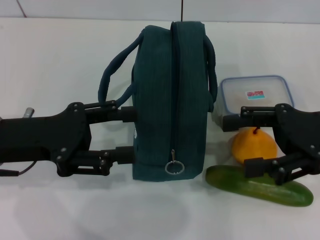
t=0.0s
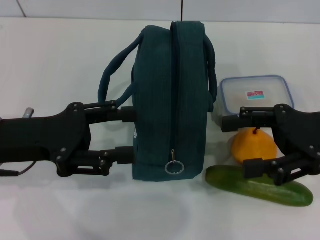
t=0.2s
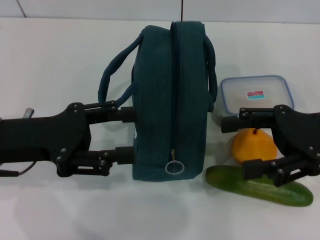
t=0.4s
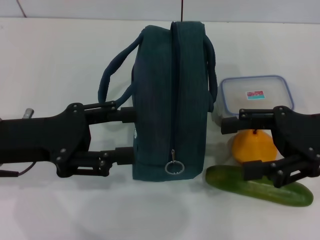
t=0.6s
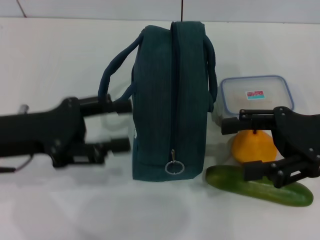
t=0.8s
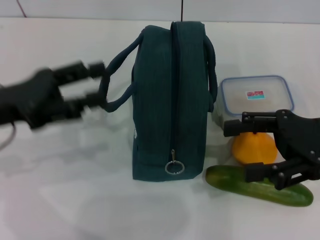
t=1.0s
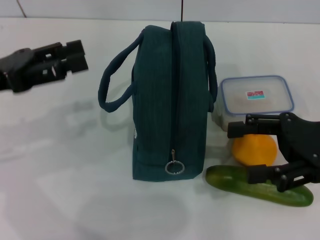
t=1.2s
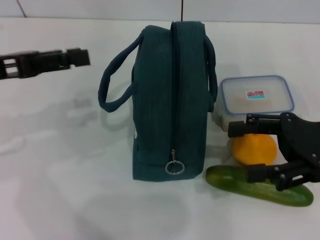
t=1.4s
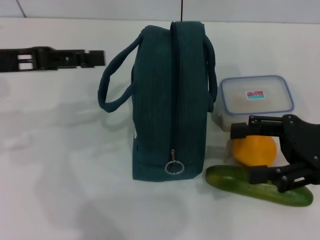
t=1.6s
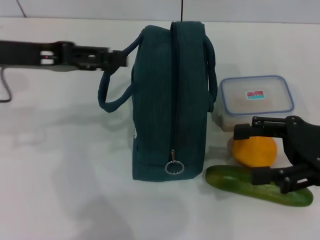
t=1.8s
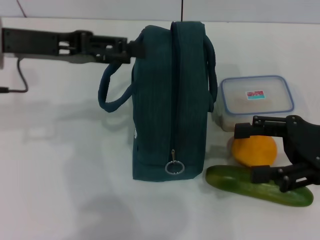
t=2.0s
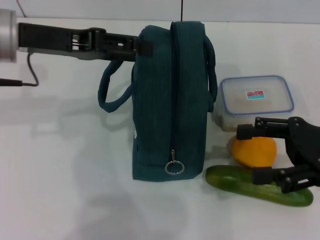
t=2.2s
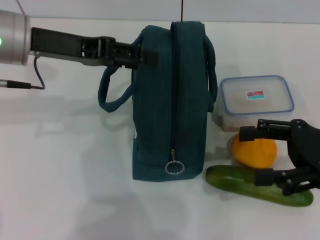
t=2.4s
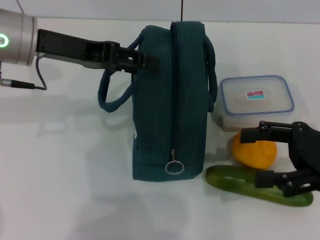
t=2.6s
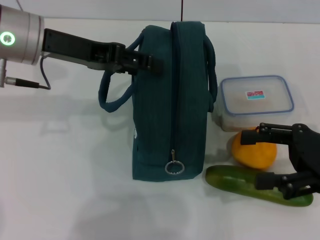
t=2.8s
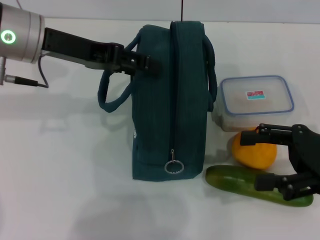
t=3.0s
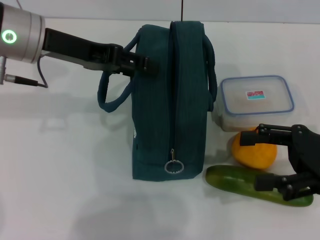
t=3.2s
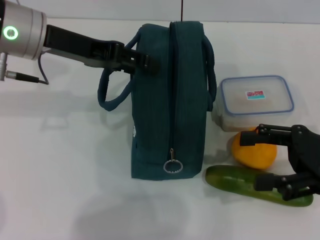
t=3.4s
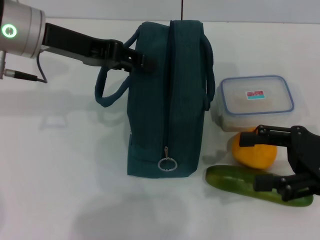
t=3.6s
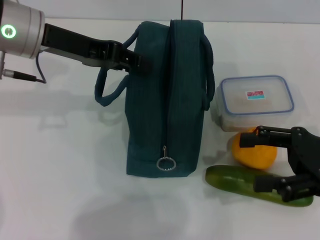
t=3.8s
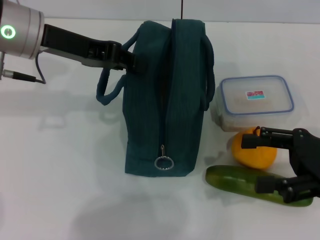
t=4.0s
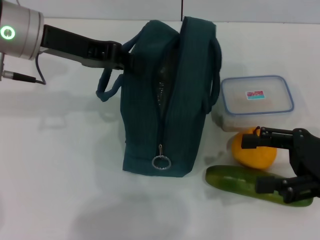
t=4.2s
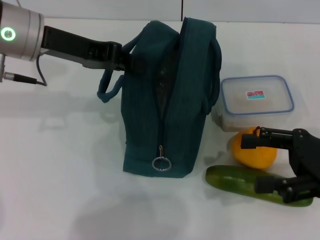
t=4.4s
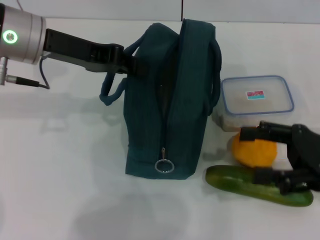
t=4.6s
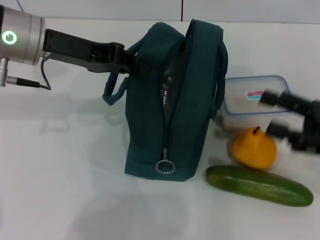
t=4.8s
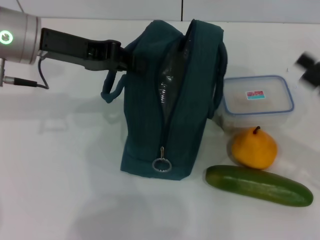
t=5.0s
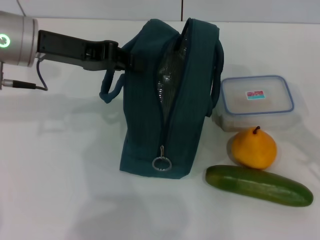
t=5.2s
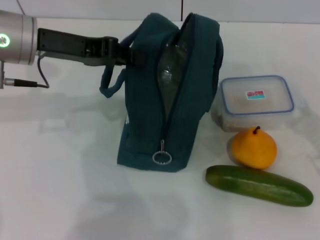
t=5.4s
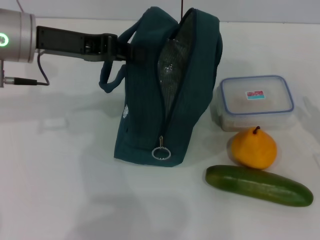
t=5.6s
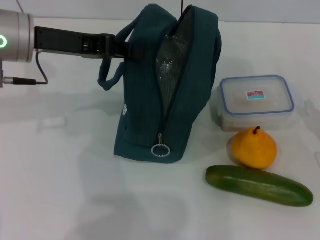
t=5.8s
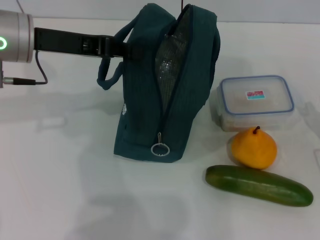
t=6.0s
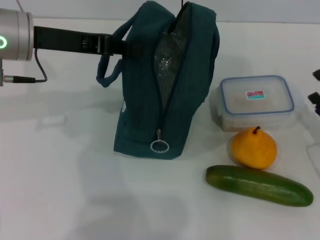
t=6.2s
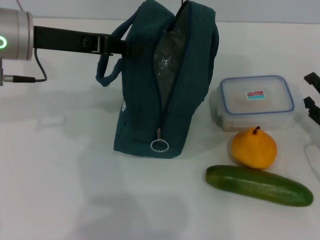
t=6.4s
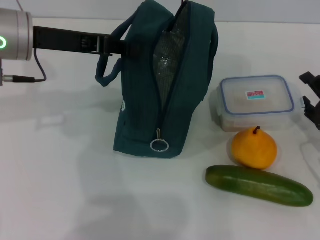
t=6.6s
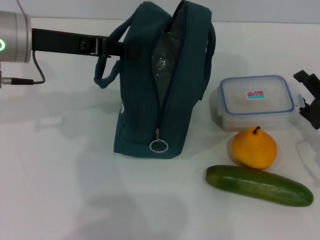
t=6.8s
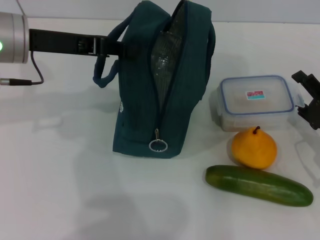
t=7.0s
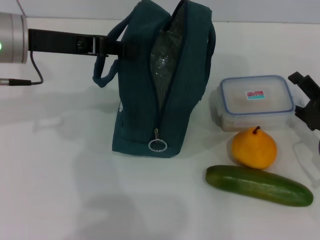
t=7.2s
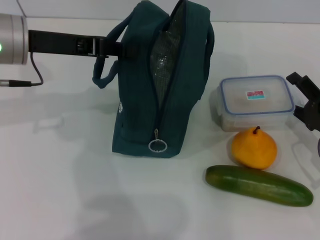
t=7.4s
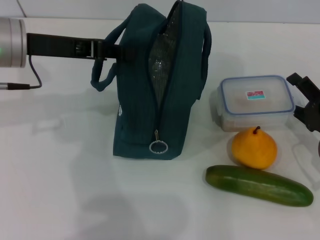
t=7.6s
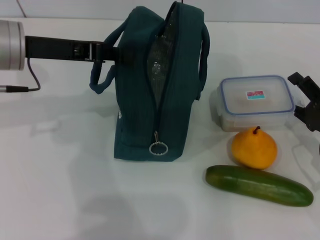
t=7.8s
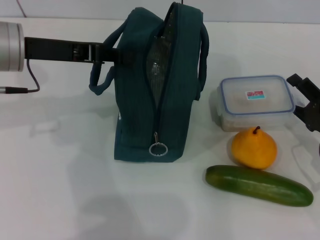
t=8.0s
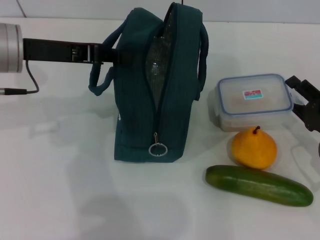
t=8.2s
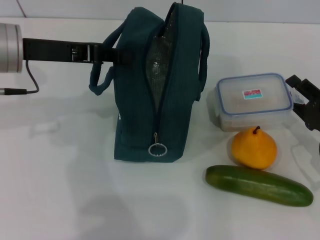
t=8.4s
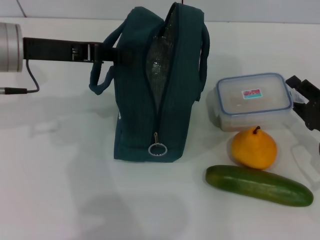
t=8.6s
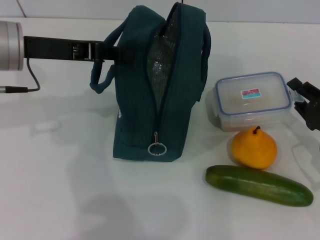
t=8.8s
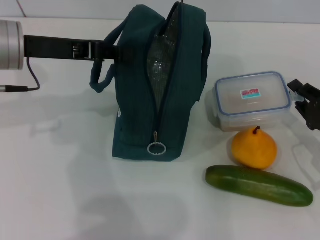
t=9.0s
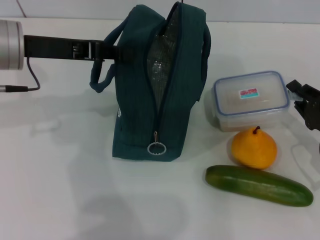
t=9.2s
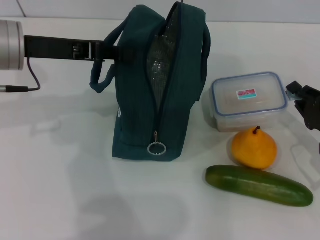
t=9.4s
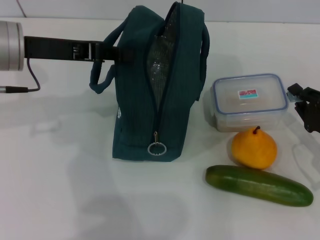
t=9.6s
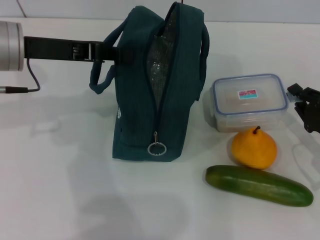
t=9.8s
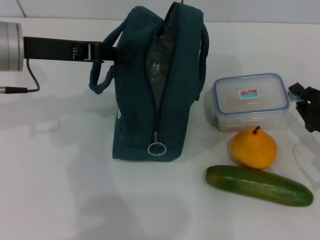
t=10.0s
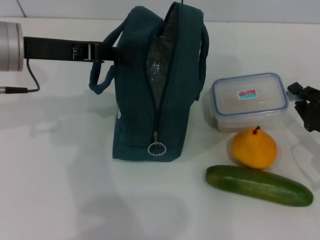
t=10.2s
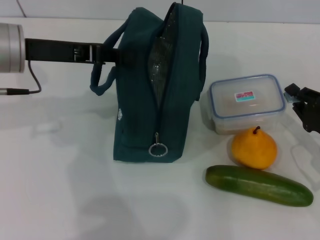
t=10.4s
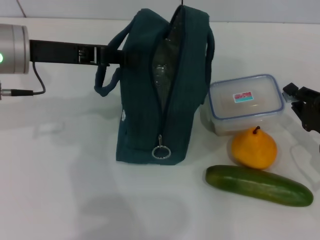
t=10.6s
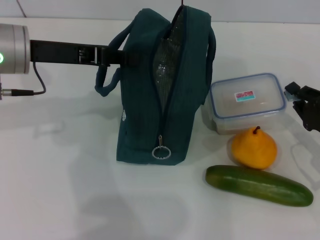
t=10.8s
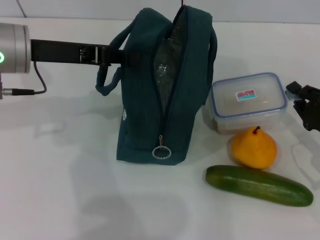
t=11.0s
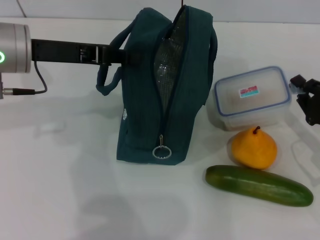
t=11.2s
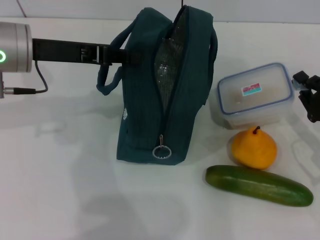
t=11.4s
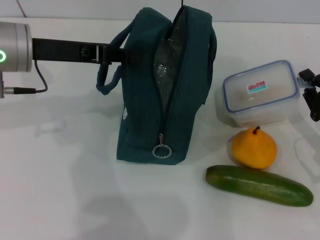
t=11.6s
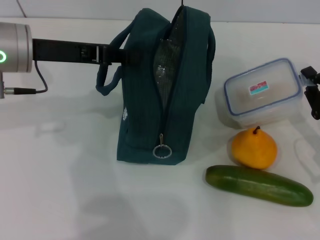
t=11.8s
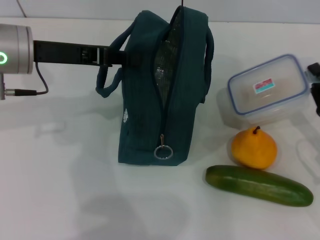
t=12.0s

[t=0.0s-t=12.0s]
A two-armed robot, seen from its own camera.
Step, t=0.0s to t=4.0s: Hold the lunch bag with your left hand.
Step, t=4.2s to t=9.6s: Pick up the lunch box with your right hand.
t=0.0s to t=1.6s: The left gripper travels upward and forward by about 10 cm.
t=1.6s to t=3.0s: The left gripper shifts approximately 10 cm to the right.
t=3.0s to t=4.4s: The left gripper closes its fingers.
t=4.4s to t=6.0s: The right gripper travels downward by roughly 10 cm.
t=6.0s to t=7.6s: The grippers move only a little.
t=7.6s to t=9.0s: The right gripper closes up.
t=9.0s to t=12.0s: The grippers make only small movements.

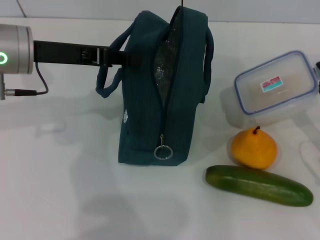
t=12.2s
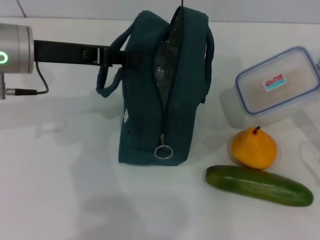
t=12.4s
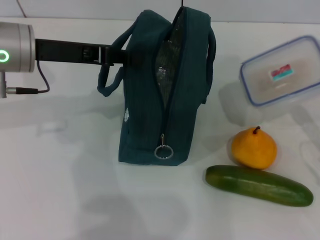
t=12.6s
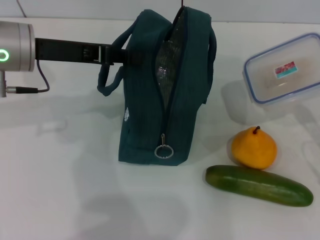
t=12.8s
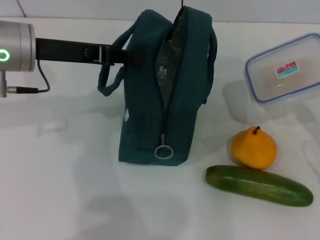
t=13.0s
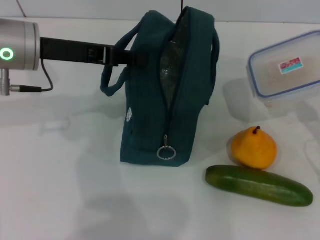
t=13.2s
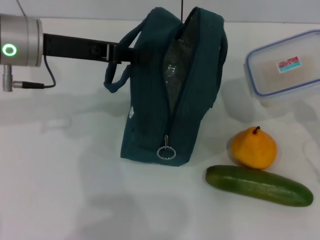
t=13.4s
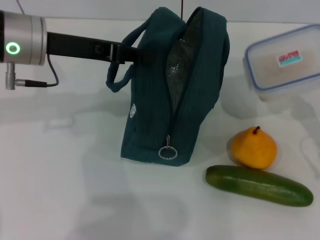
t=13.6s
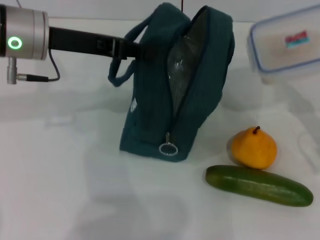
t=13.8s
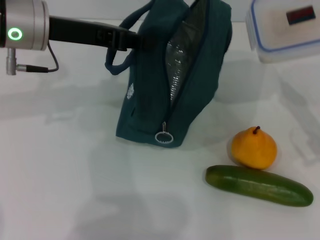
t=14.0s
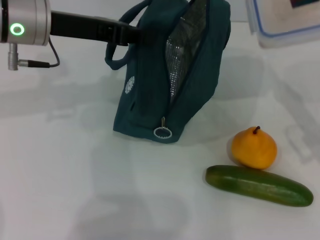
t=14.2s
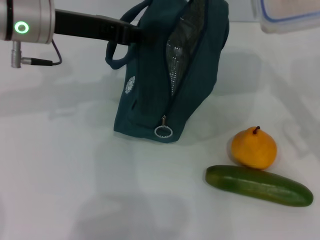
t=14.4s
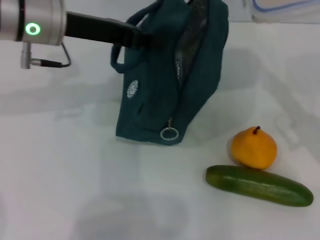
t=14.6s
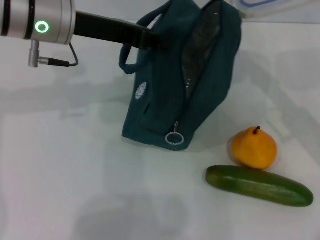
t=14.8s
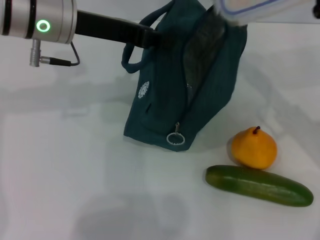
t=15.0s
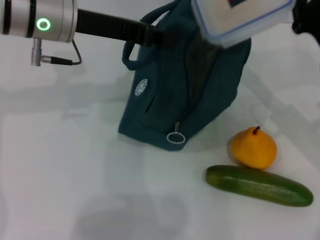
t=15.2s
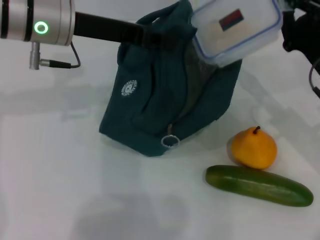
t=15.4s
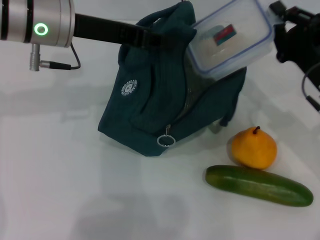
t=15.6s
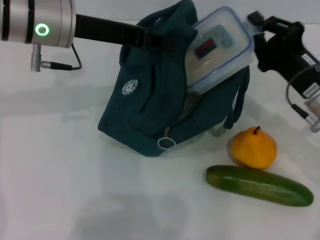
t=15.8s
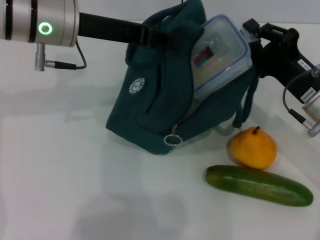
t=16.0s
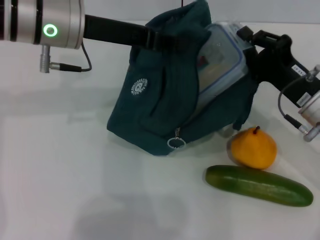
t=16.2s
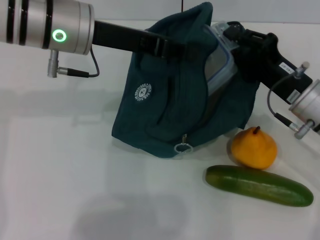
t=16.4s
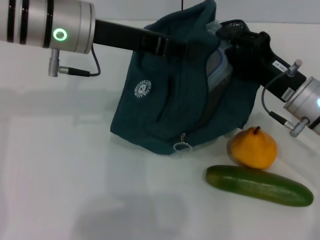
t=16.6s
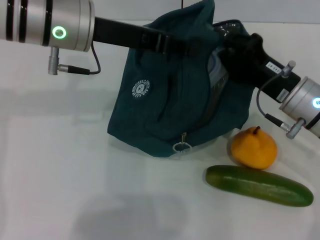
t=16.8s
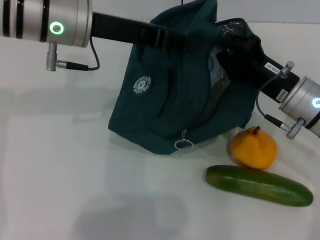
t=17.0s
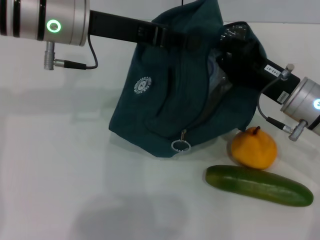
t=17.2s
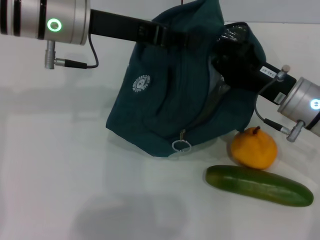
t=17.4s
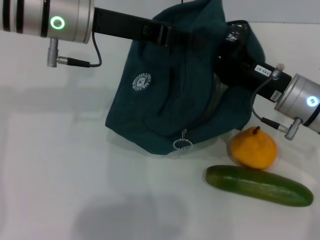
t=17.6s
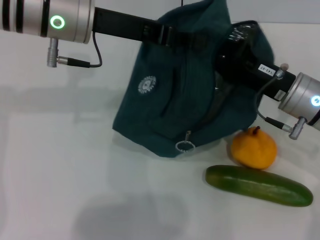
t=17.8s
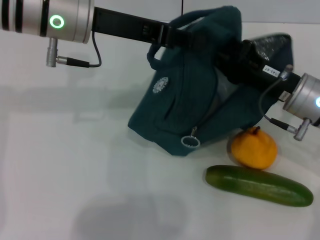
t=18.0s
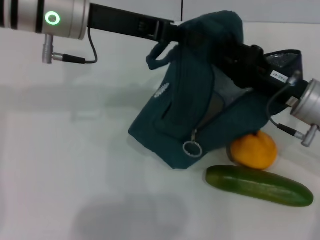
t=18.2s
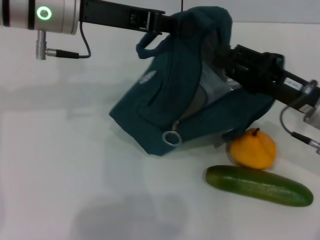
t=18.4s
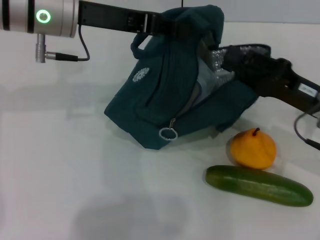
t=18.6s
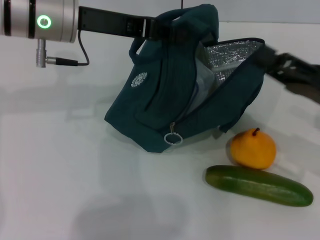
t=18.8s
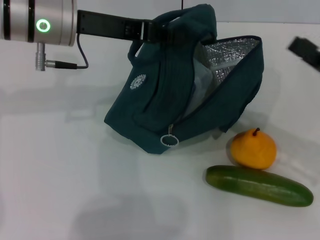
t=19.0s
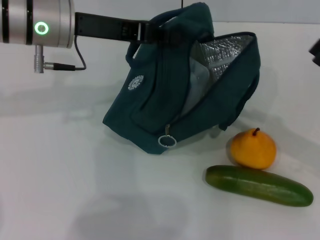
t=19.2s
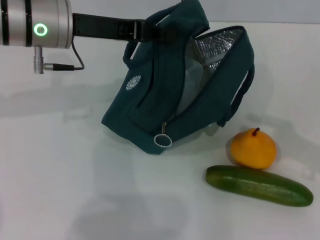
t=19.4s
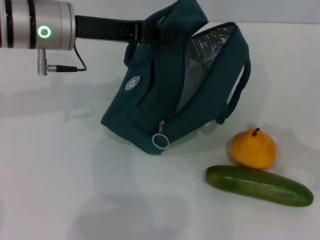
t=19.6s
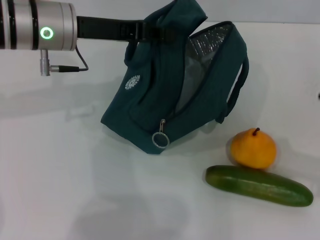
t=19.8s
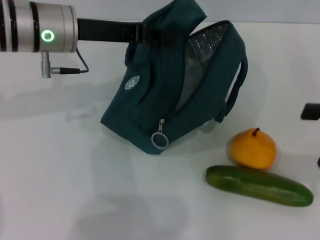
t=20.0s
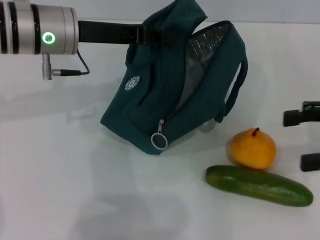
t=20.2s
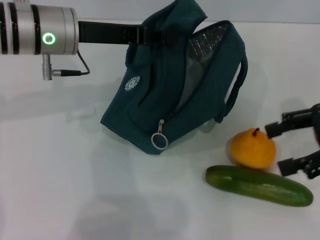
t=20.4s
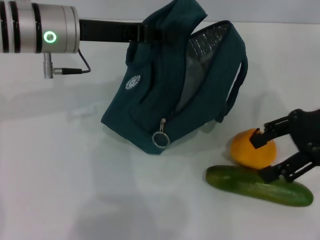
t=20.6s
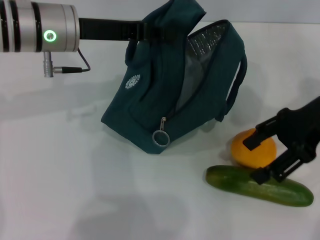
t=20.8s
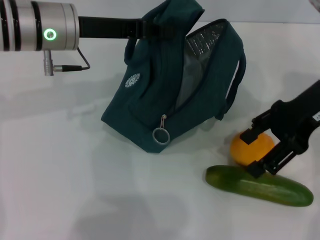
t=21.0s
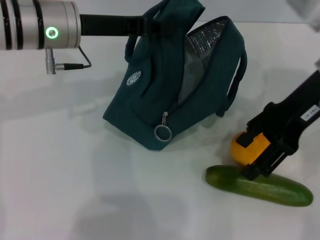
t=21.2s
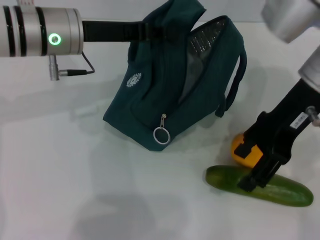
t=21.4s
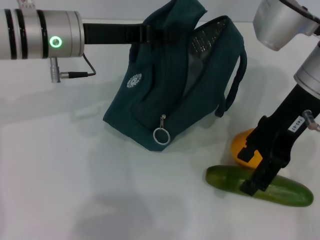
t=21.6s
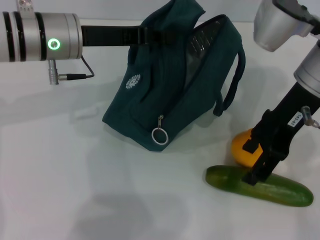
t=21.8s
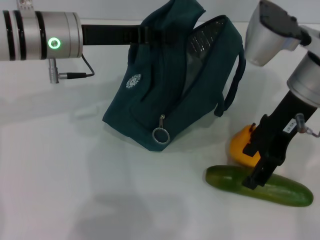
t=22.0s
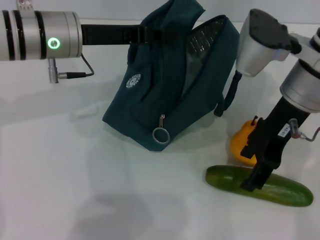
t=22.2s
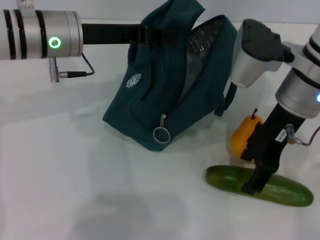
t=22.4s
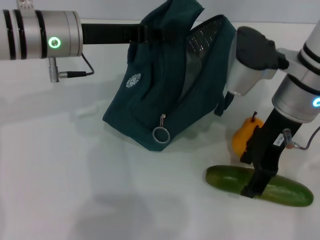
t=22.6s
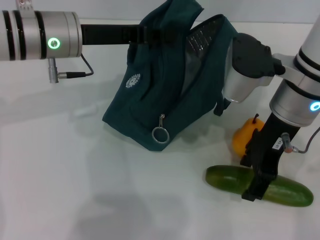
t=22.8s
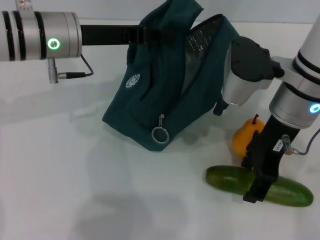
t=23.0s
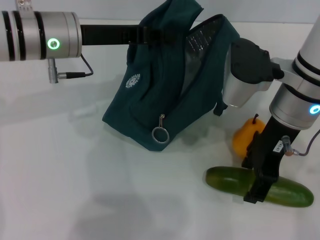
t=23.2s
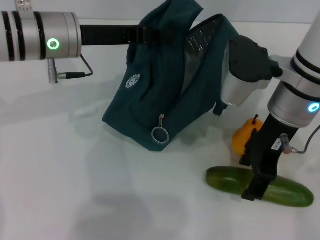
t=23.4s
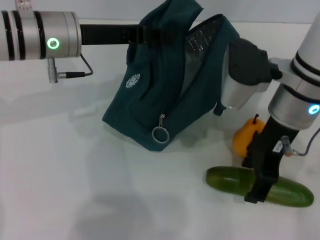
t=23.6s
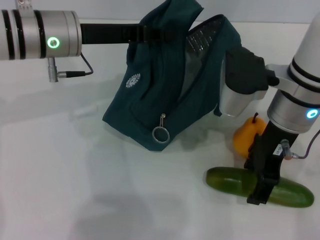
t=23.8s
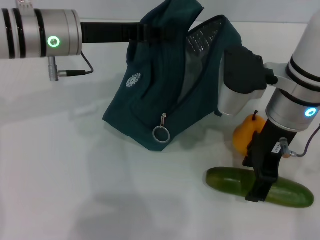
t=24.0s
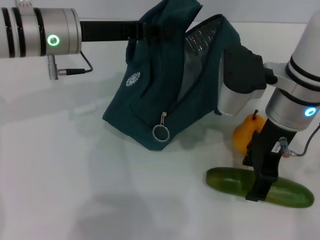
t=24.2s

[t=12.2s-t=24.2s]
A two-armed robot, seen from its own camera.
Step, t=12.2s to t=18.4s: Place the lunch box into the lunch bag with your right hand.
t=13.8s to t=15.2s: The right gripper goes about 10 cm forward and to the left.
t=15.2s to t=16.6s: The right gripper moves roughly 5 cm.
t=18.2s to t=19.8s: The right gripper is displaced to the right and backward by roughly 15 cm.
t=19.8s to t=21.2s: The right gripper travels to the left, forward and upward by approximately 20 cm, and opens its fingers.
t=21.2s to t=22.6s: The right gripper ends up some 5 cm from where it was.
t=22.6s to t=24.2s: The grippers stay close to where they were, moving slightly.
